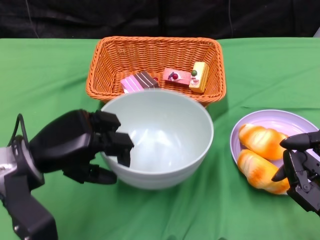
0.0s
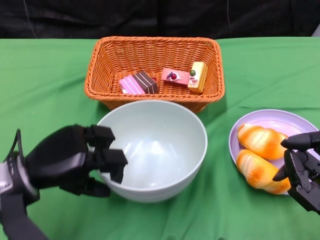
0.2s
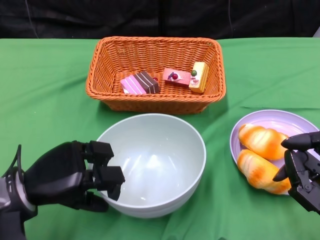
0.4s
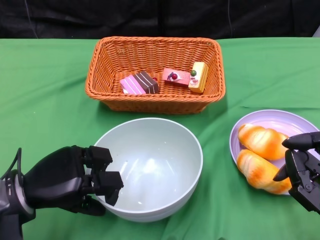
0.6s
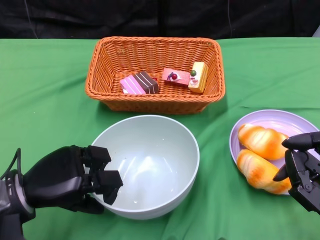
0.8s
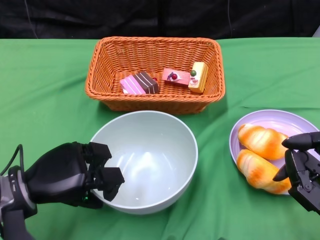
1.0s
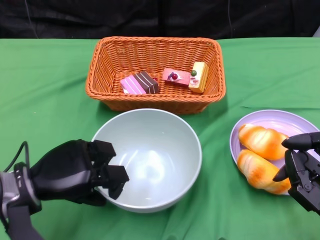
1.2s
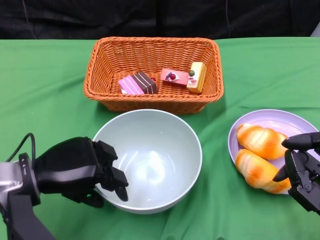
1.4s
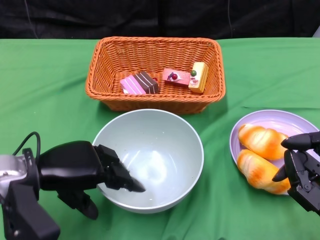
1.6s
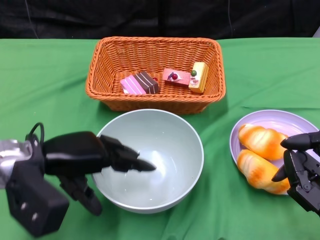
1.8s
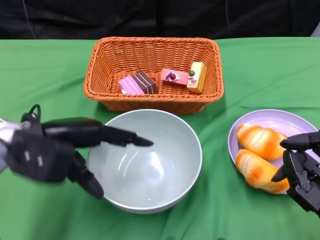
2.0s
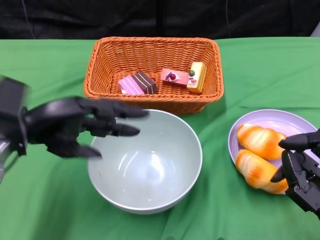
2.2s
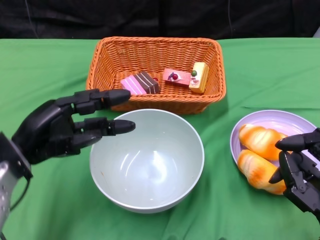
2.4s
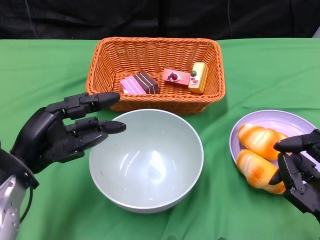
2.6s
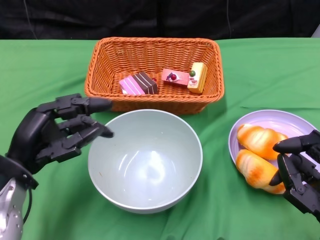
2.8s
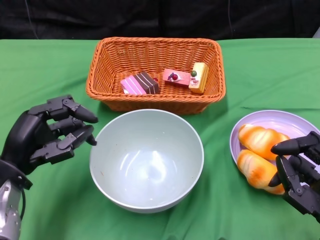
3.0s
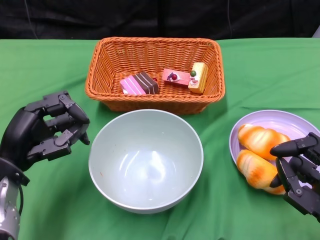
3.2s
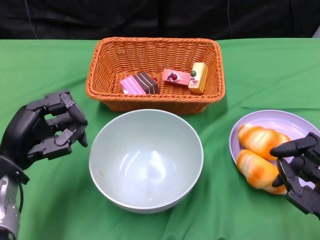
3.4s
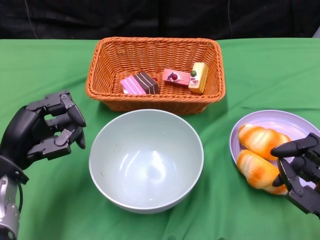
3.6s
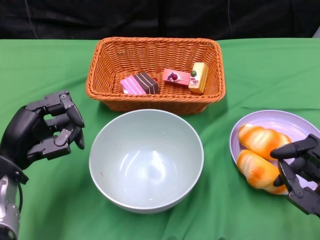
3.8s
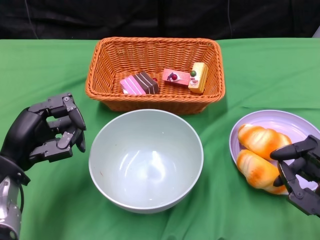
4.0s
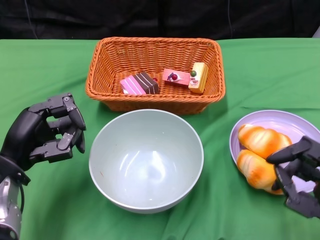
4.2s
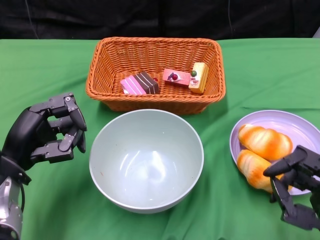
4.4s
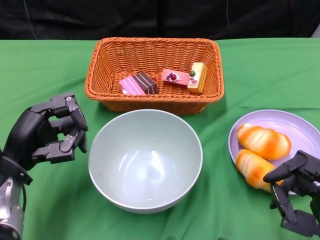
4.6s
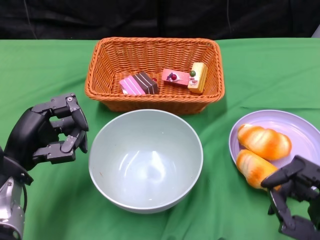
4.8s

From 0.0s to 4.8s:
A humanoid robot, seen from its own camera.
Step, from 0.0s to 2.0s: Place the bowl on the table with the left gripper.
From 3.2s to 4.8s: The hands stay close to where they were, moving slightly.

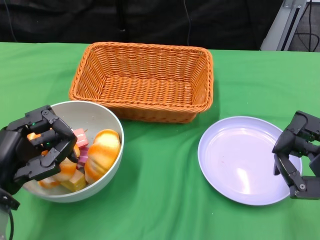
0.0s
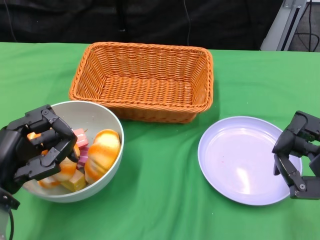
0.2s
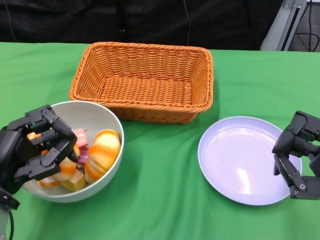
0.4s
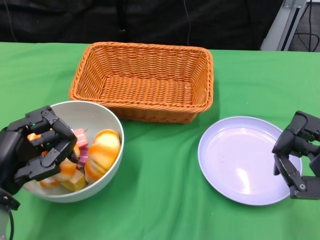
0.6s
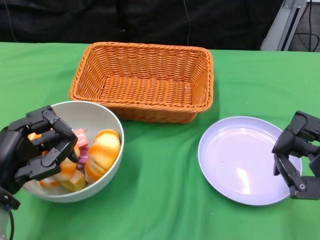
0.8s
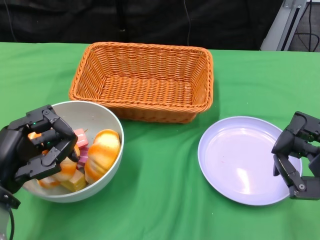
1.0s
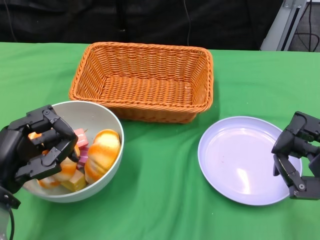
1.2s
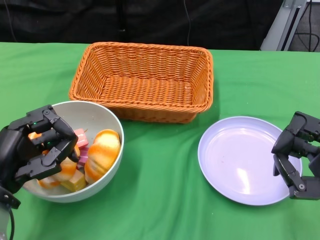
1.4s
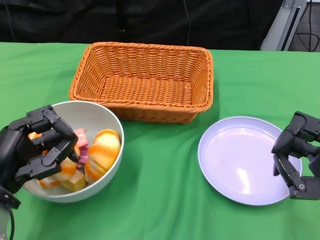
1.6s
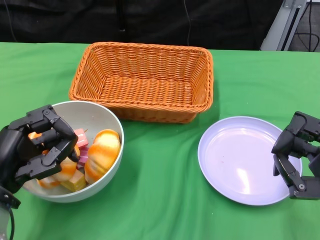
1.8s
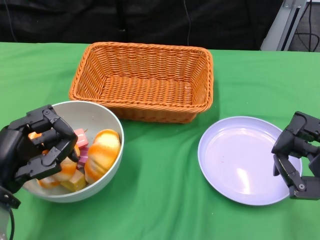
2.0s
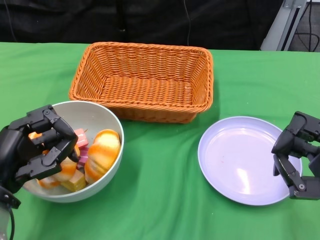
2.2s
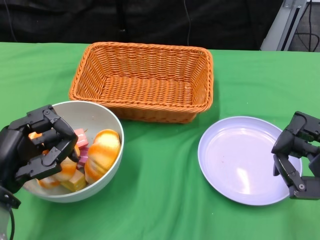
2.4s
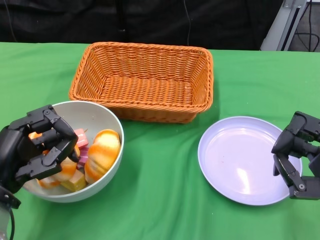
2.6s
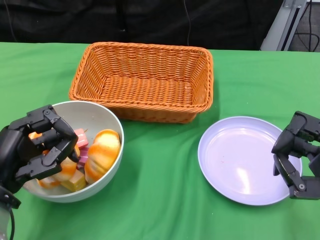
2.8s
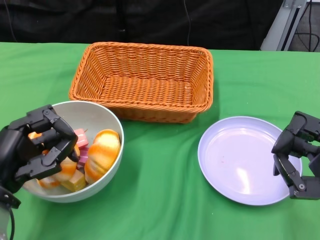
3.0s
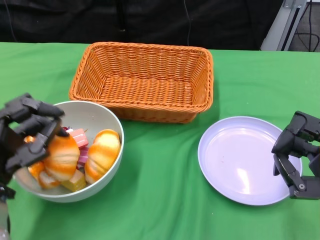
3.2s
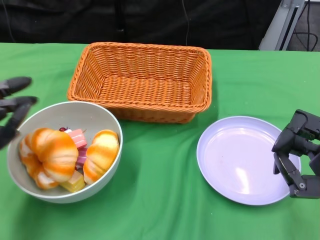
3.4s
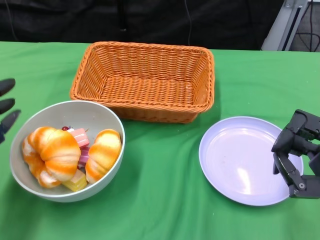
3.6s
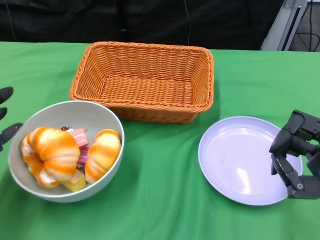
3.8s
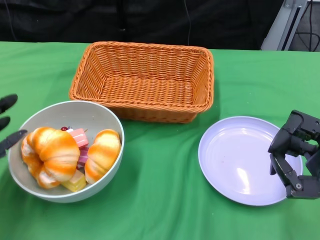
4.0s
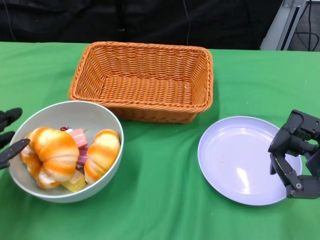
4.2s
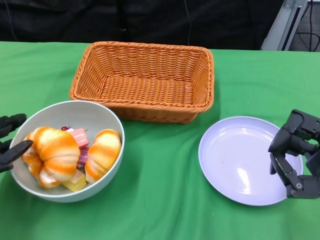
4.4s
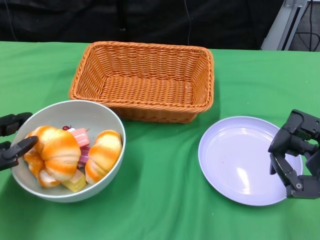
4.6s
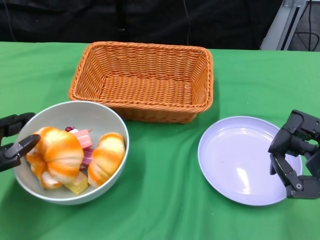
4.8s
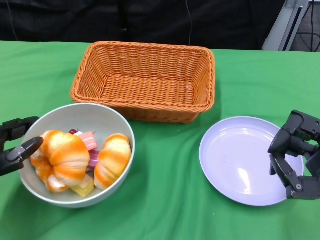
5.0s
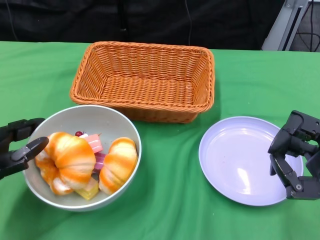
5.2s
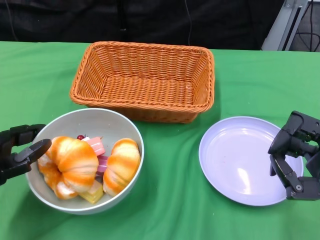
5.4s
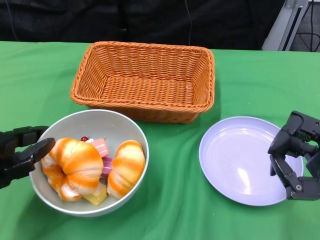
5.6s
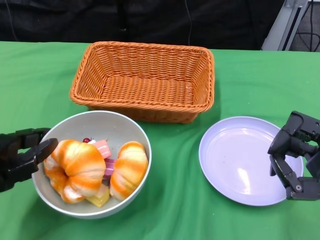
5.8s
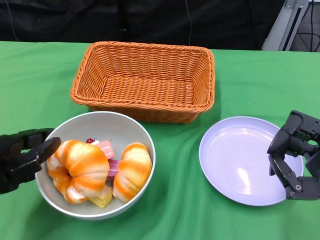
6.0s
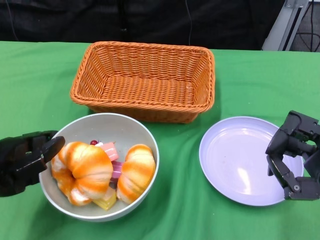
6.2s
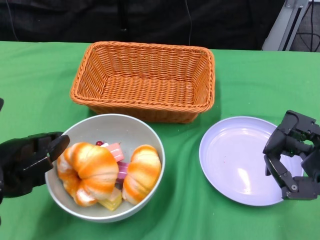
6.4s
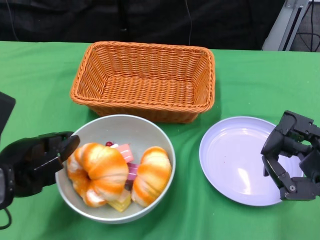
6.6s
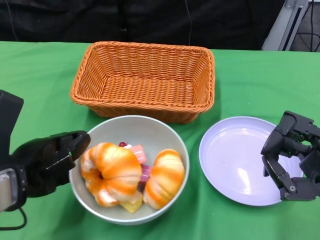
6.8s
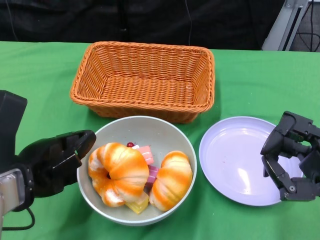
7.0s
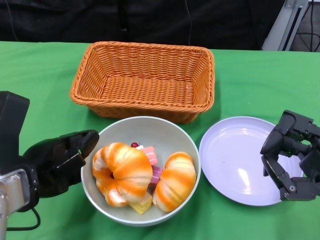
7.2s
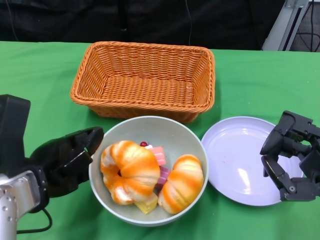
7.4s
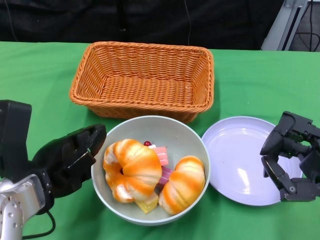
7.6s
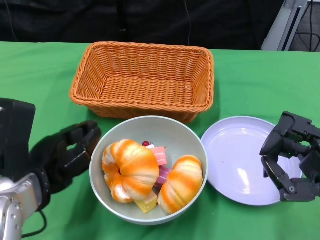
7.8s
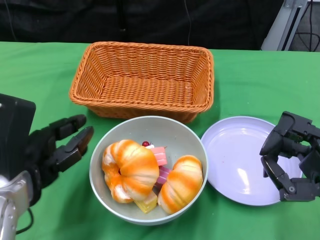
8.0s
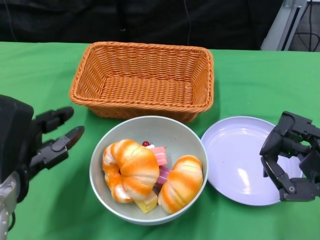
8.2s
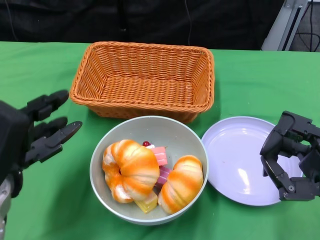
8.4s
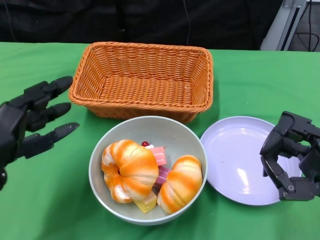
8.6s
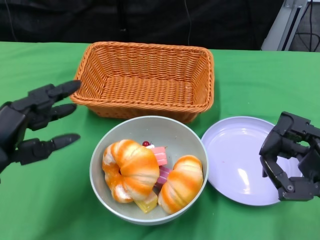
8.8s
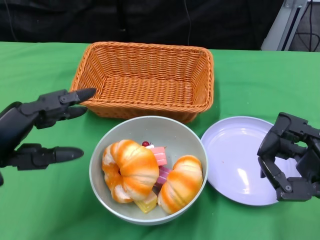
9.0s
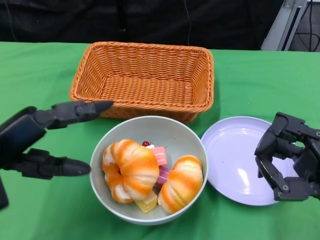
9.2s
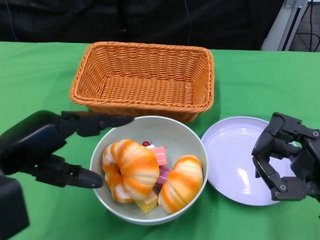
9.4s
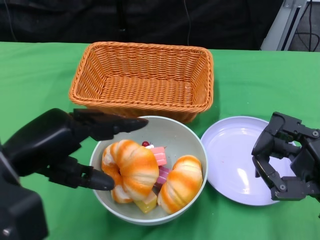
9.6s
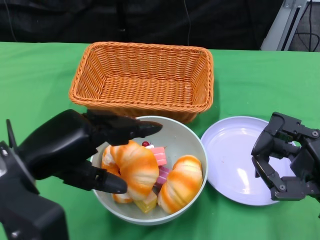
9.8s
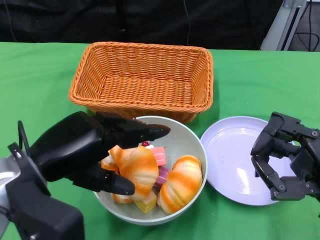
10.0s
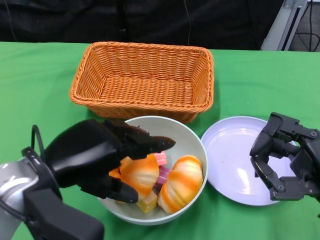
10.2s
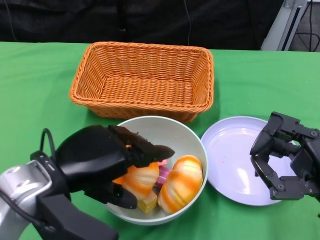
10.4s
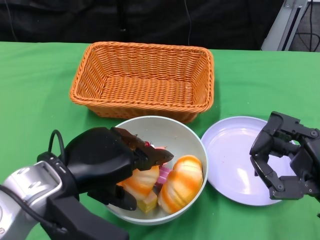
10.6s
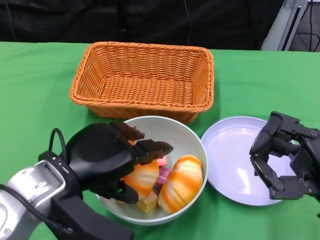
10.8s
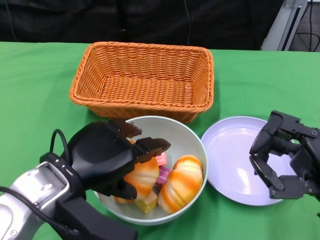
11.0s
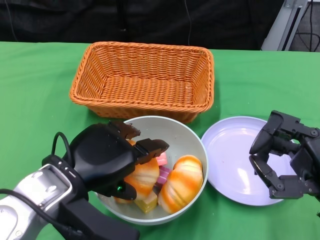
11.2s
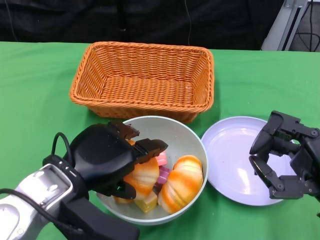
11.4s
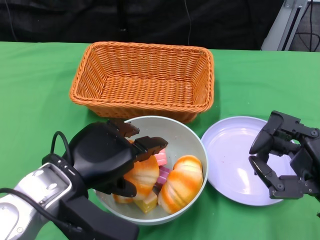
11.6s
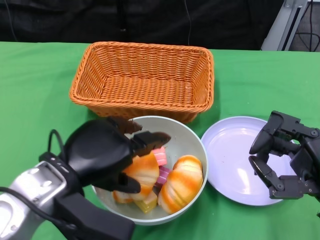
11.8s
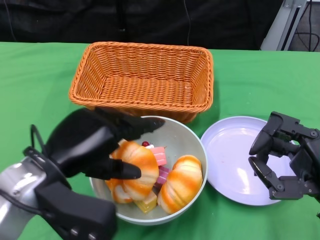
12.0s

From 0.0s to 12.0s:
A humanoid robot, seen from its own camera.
Step, from 0.0s to 7.6s: Push the bowl to the center of the table using the left gripper.
From 1.6s to 3.0s: Both hands stay put.
From 3.0s to 4.4s: The left hand is displaced to the left by some 5 cm.
From 4.4s to 6.0s: The left hand ends up some 5 cm from where it was.
From 6.0s to 7.6s: The left hand is displaced to the right by roughly 5 cm.
From 7.6s to 9.0s: The left hand goes some 5 cm to the left.
From 9.0s to 10.4s: The left hand heads to the right, covering some 10 cm.
From 10.4s to 12.0s: The hands make only small movements.

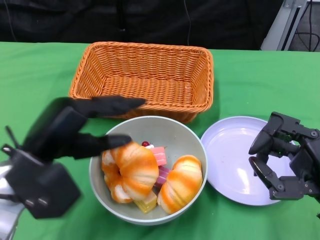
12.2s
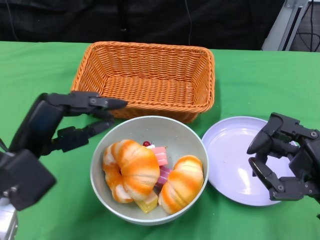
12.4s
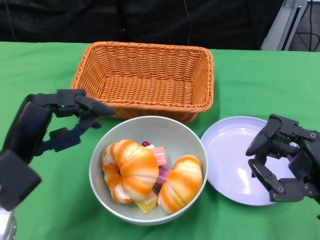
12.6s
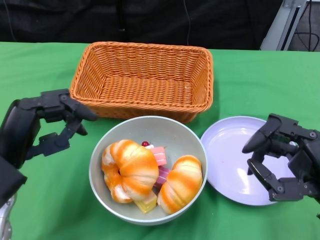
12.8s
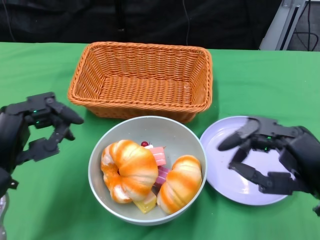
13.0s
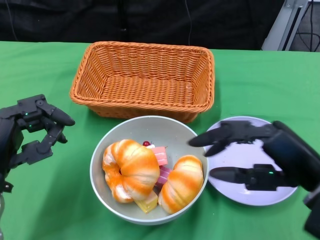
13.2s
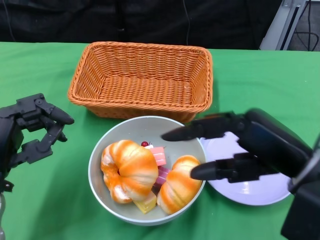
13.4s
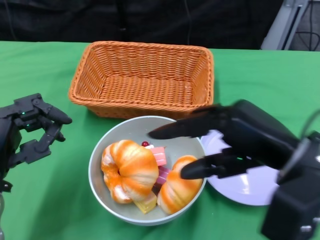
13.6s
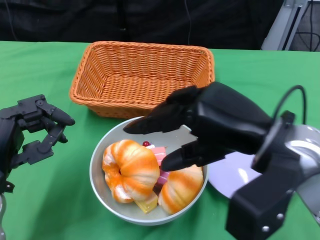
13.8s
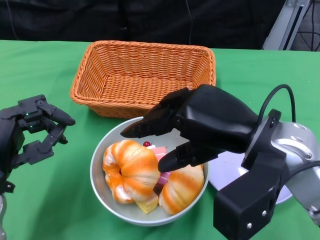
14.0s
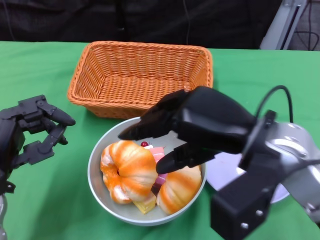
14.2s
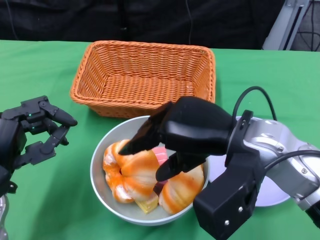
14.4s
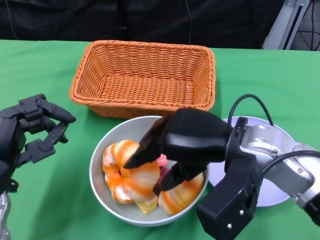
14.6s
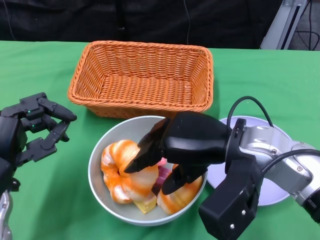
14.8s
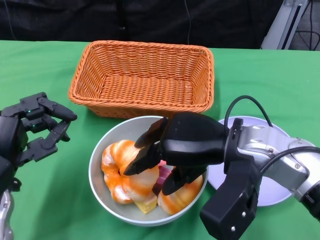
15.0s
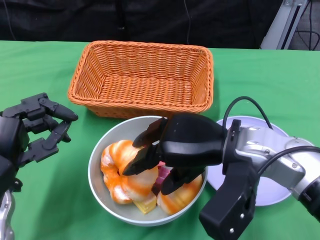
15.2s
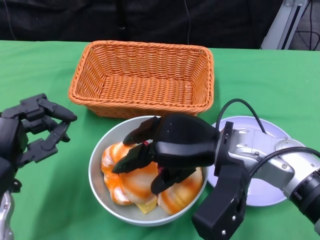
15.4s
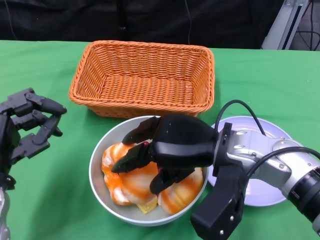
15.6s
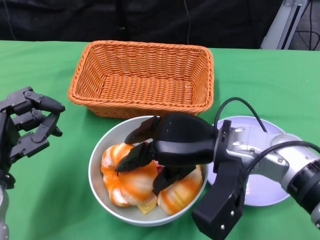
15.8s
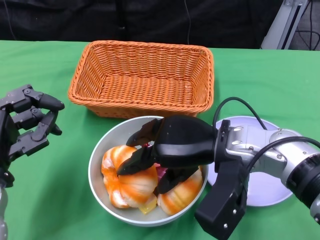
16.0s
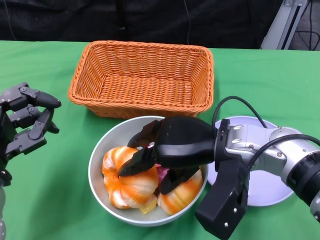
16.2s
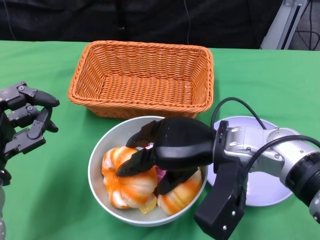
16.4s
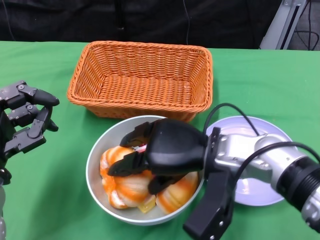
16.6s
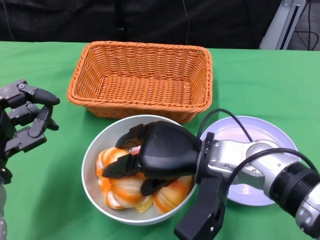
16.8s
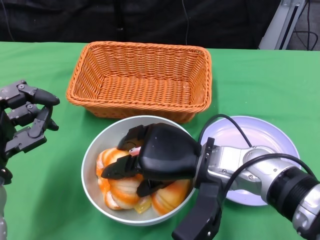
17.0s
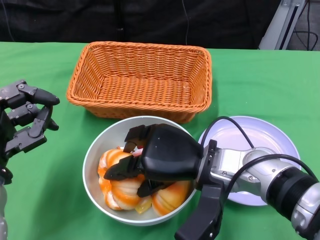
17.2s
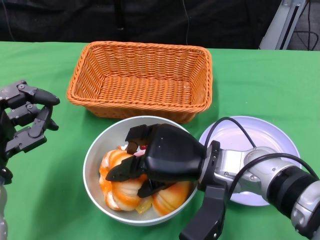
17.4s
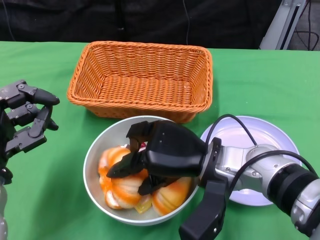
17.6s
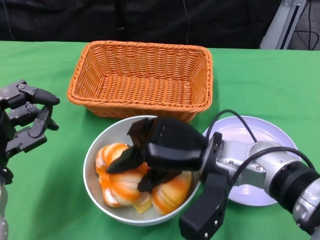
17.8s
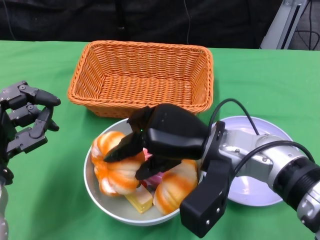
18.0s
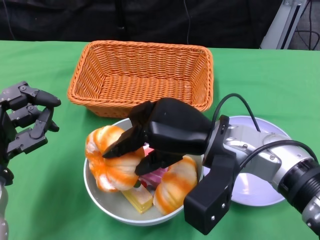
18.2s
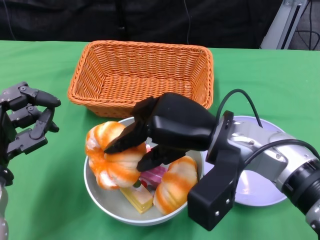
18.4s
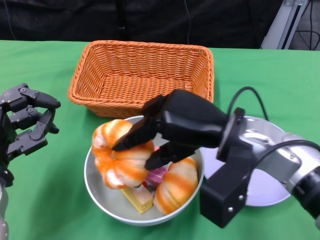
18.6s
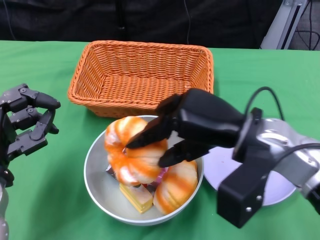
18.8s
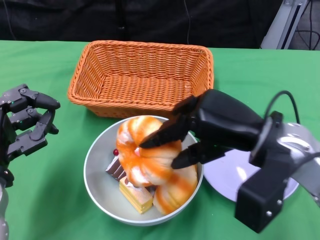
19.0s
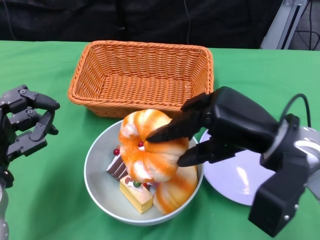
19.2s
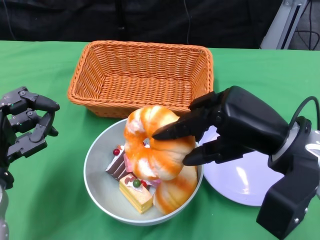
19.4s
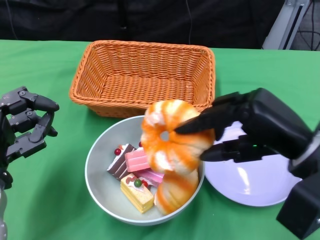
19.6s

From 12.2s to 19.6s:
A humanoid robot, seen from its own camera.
From 12.2s to 13.6s: The right hand is displaced upward and to the left by about 10 cm. Meanwhile the left hand heads downward and to the left, covering some 10 cm.
From 13.6s to 15.2s: The right hand shifts about 10 cm to the left and forward.
From 18.2s to 19.6s: The right hand shifts some 10 cm to the right.
